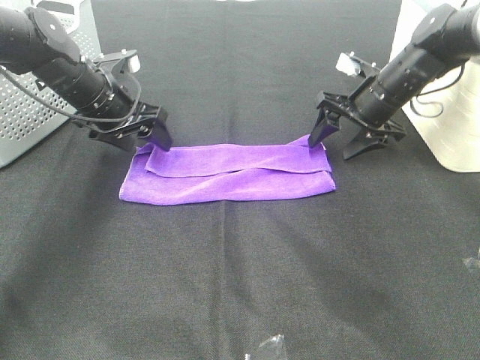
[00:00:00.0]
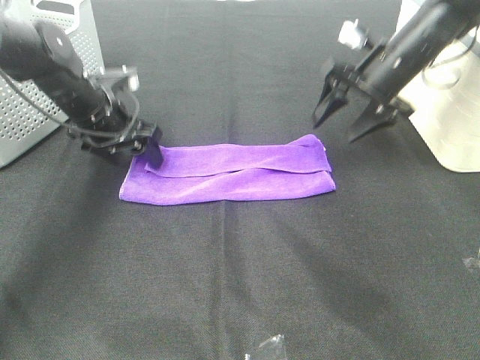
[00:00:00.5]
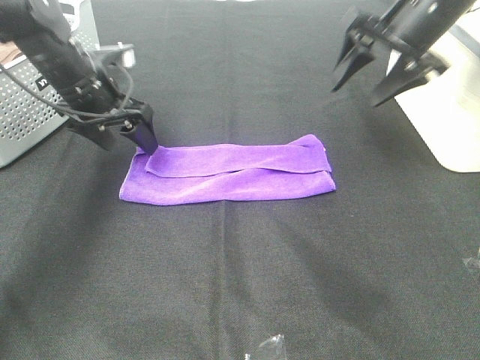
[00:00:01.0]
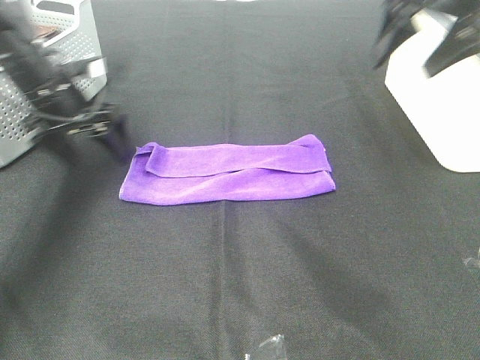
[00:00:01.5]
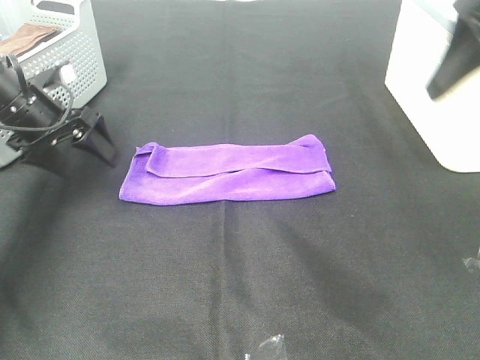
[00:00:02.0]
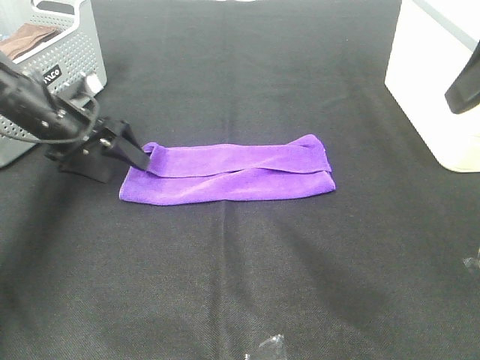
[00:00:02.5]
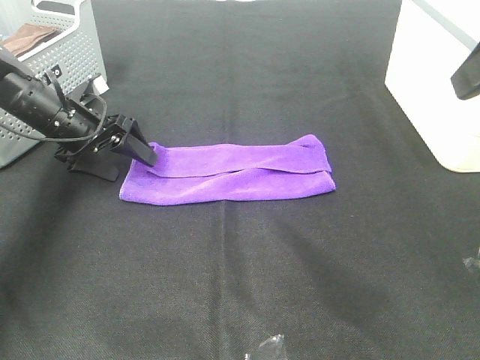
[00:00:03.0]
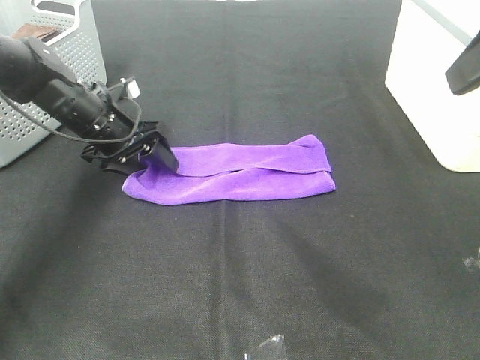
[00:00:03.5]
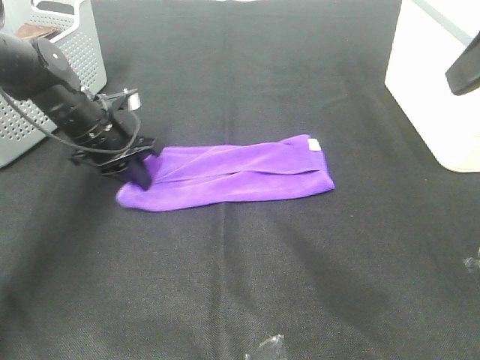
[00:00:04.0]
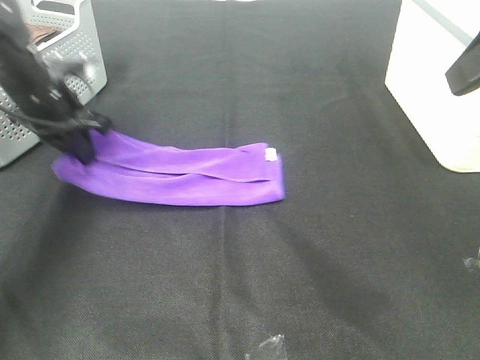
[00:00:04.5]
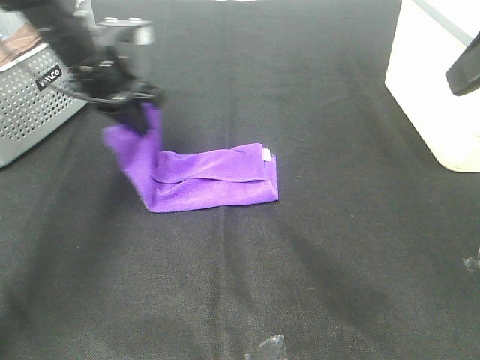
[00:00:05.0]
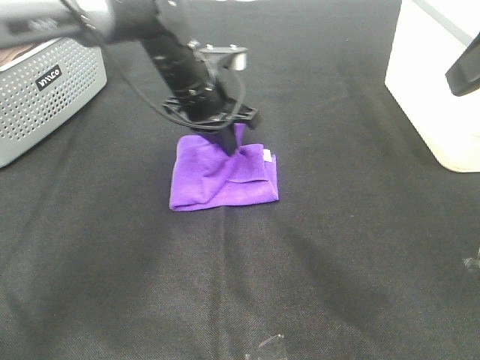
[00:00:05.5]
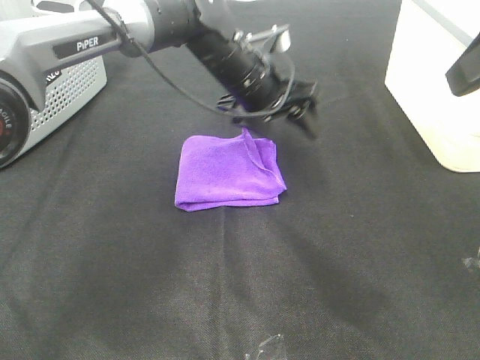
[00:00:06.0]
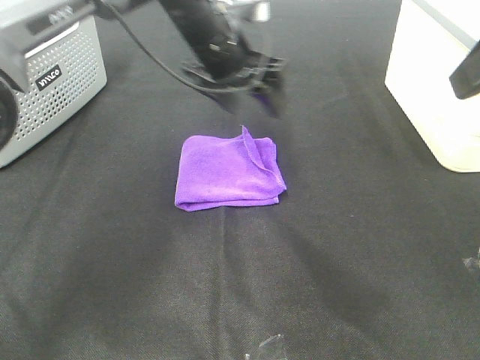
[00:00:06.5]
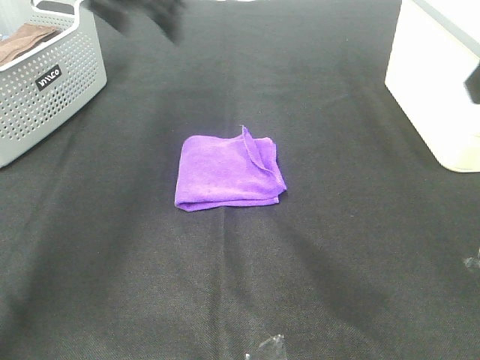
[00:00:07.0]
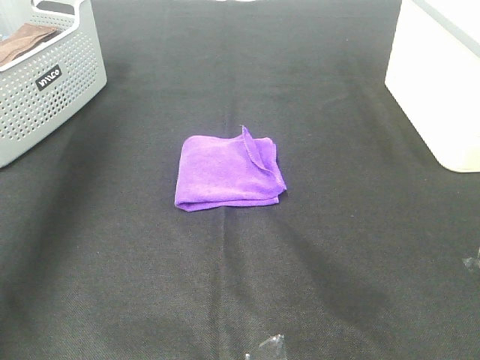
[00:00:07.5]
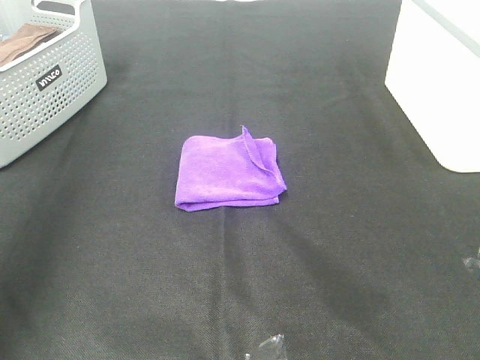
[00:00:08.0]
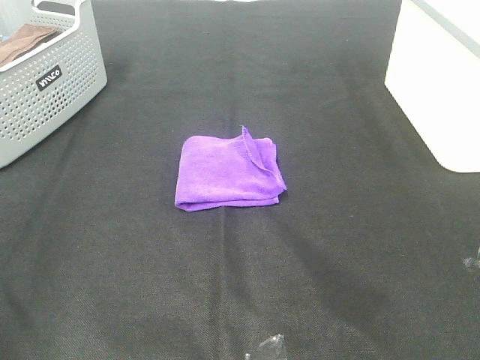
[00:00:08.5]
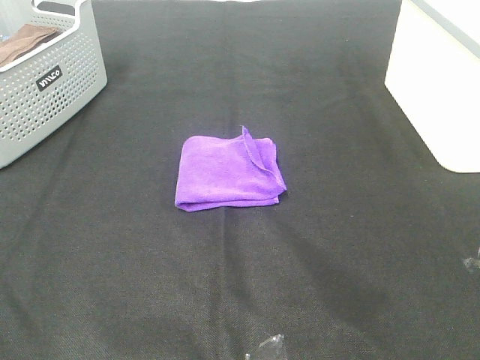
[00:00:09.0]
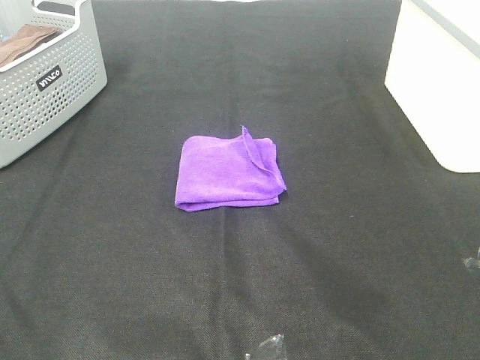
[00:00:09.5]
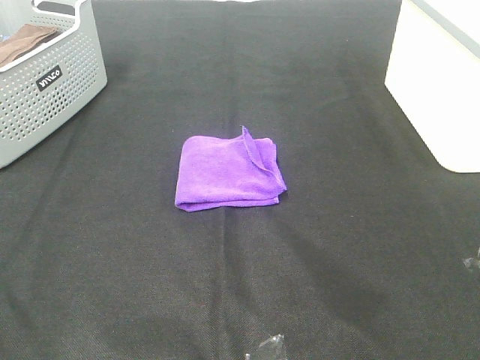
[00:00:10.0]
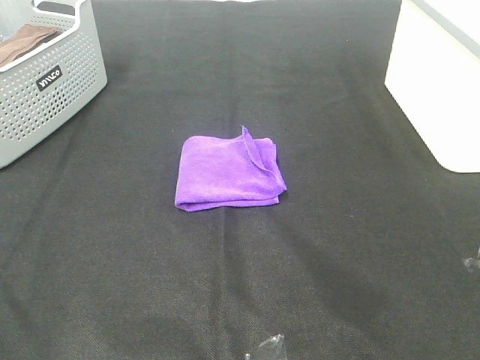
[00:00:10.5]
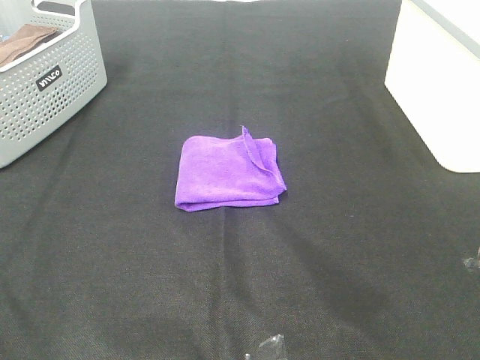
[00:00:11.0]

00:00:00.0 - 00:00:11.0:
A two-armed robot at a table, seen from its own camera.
Task of the whole recording: Fold towels.
Step, 00:00:00.0 - 00:00:05.5: Left hand: fold the purple towel from left to right.
00:00:00.0 - 00:00:02.0: The left gripper goes approximately 10 cm to the left. Meanwhile the right gripper heads upward and backward, covering approximately 30 cm.
00:00:02.0 - 00:00:03.5: The right gripper shifts by about 5 cm. Meanwhile the left gripper travels to the right and downward by about 10 cm.
00:00:03.5 - 00:00:05.5: The left gripper shifts some 15 cm to the right and upward, and closes its fingers.
00:00:05.5 - 00:00:07.5: The right gripper is displaced backward by roughly 5 cm; the left gripper heads to the left and upward, covering about 35 cm, and opens.
00:00:07.5 - 00:00:09.0: The left gripper shifts approximately 40 cm backward.
